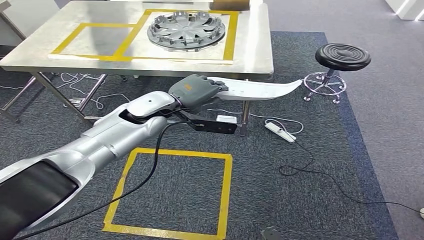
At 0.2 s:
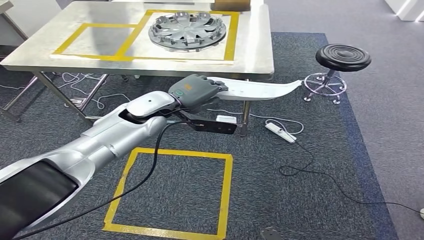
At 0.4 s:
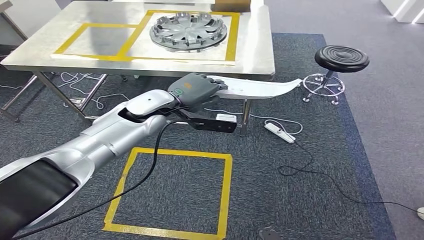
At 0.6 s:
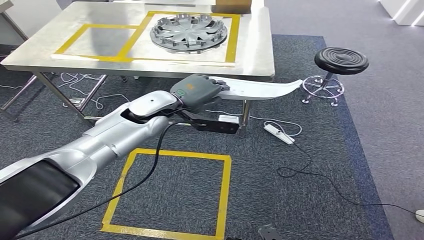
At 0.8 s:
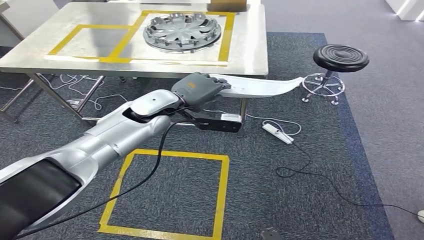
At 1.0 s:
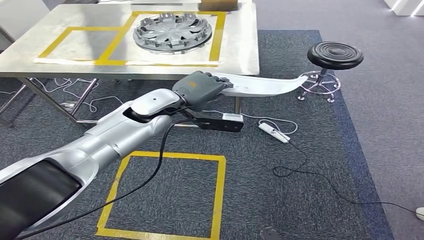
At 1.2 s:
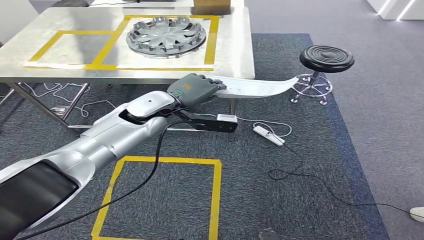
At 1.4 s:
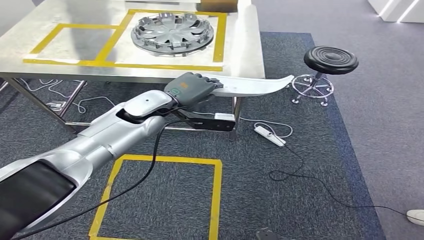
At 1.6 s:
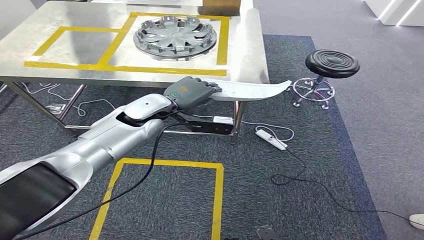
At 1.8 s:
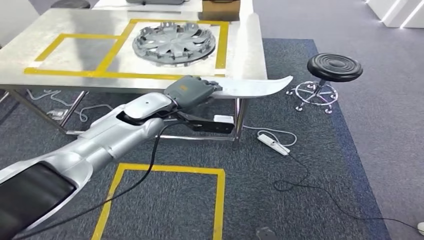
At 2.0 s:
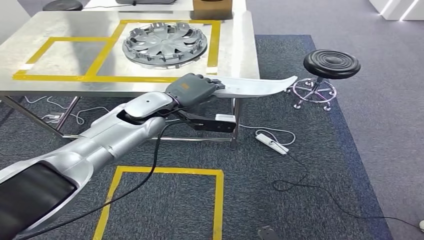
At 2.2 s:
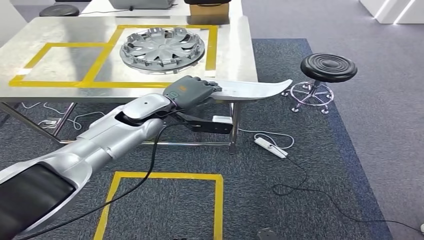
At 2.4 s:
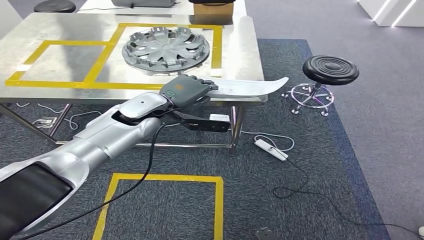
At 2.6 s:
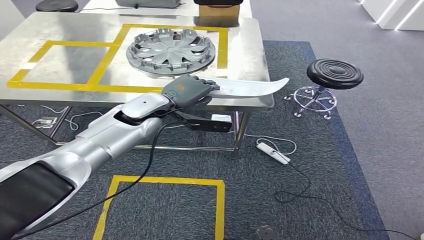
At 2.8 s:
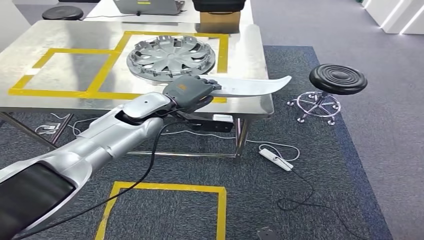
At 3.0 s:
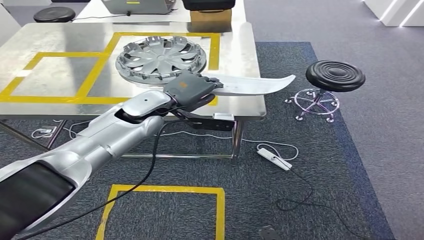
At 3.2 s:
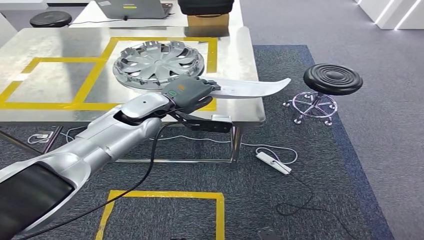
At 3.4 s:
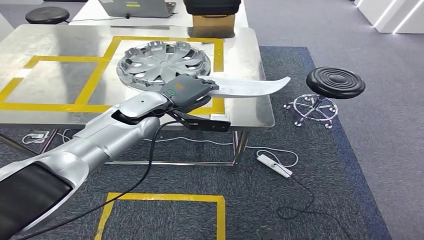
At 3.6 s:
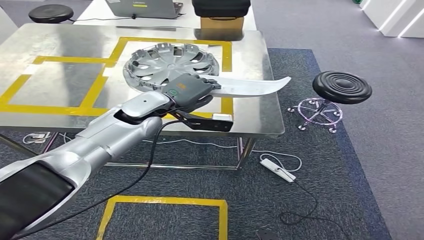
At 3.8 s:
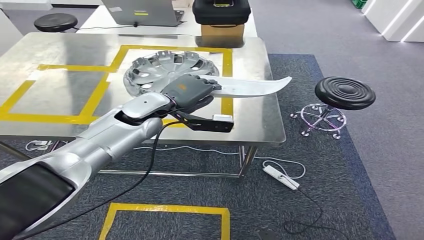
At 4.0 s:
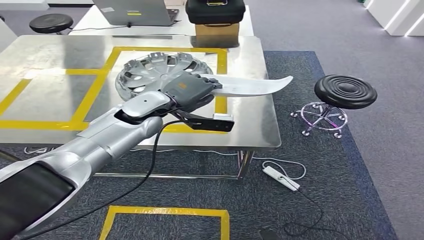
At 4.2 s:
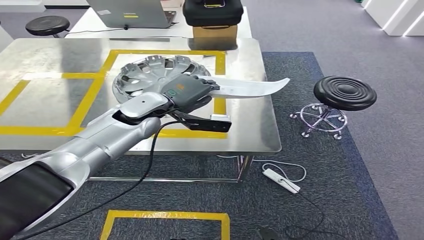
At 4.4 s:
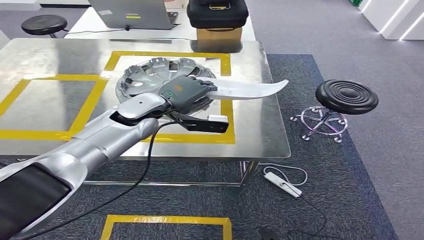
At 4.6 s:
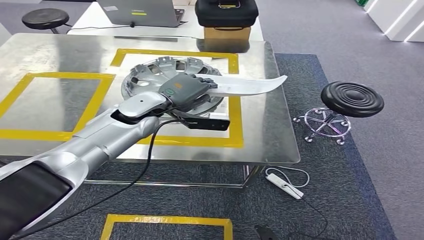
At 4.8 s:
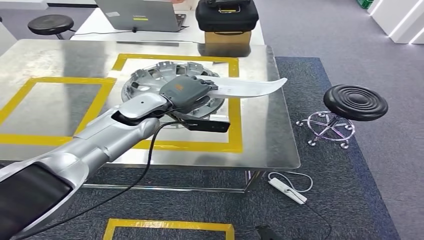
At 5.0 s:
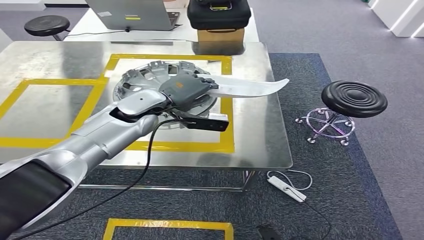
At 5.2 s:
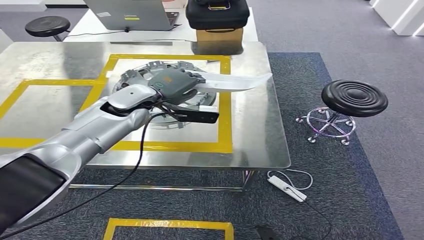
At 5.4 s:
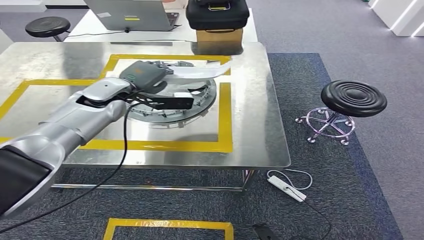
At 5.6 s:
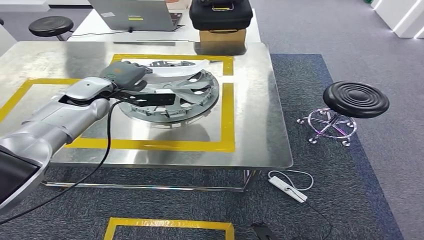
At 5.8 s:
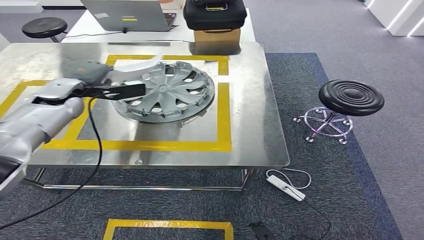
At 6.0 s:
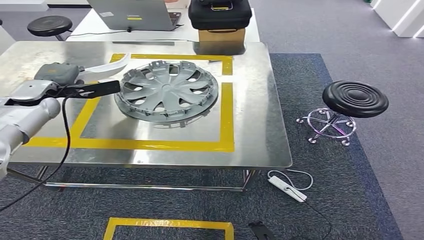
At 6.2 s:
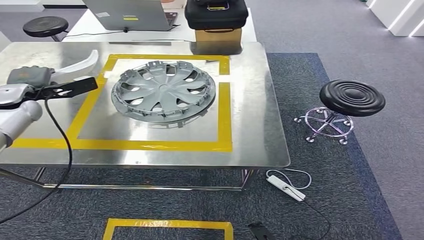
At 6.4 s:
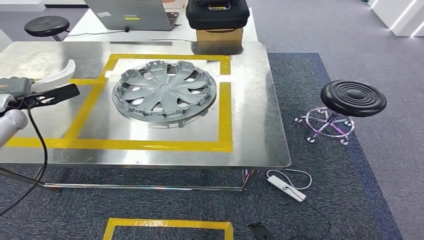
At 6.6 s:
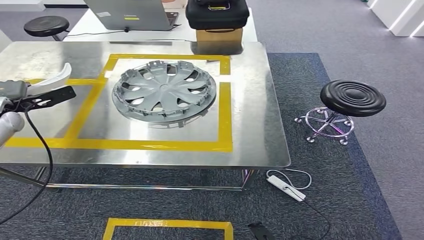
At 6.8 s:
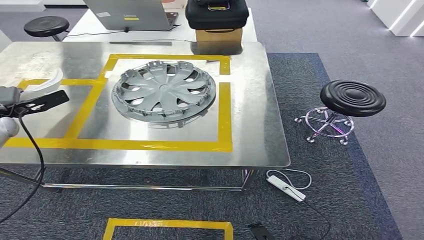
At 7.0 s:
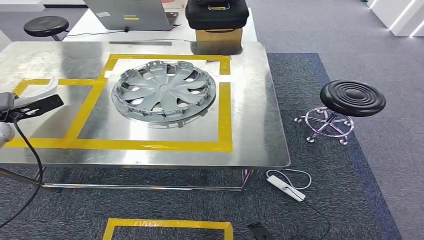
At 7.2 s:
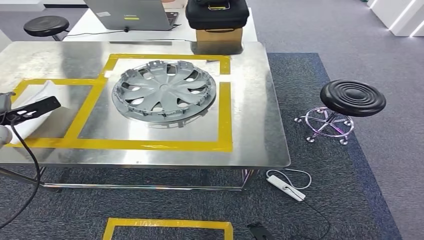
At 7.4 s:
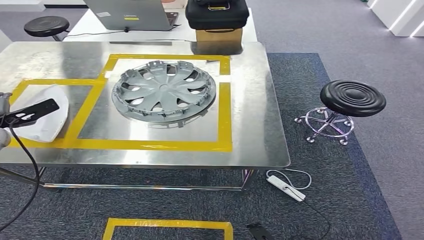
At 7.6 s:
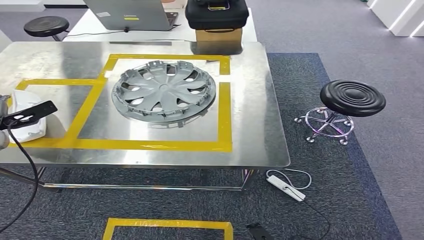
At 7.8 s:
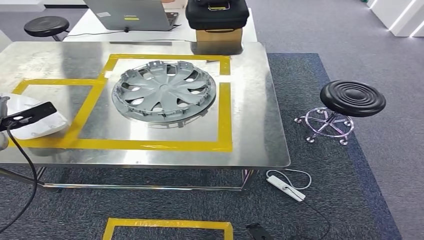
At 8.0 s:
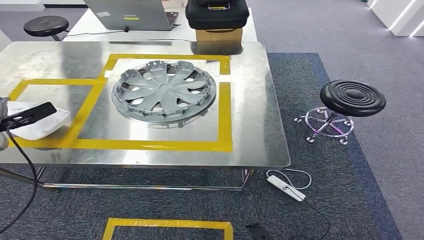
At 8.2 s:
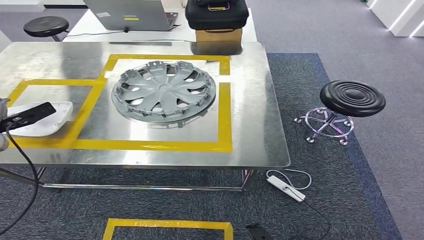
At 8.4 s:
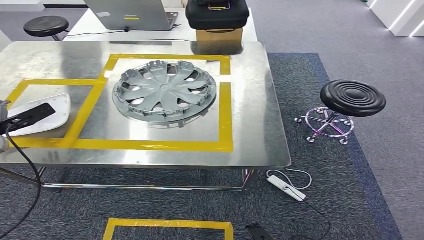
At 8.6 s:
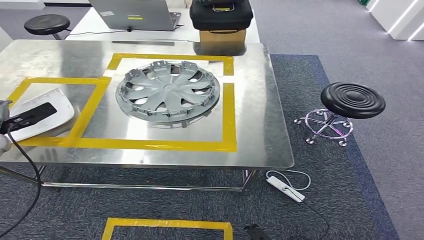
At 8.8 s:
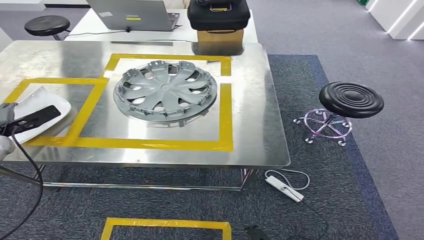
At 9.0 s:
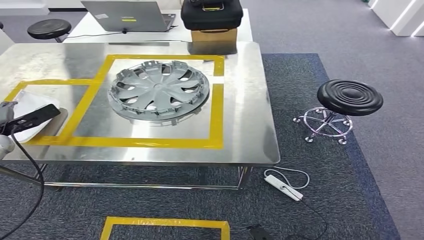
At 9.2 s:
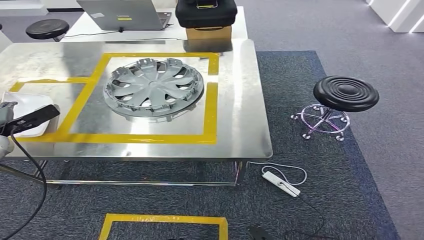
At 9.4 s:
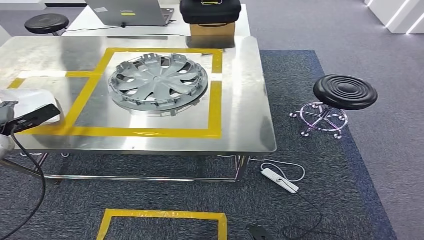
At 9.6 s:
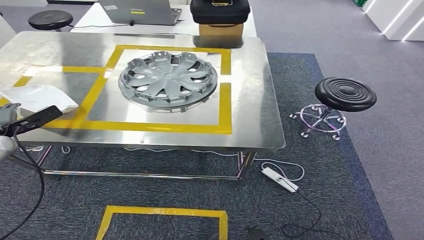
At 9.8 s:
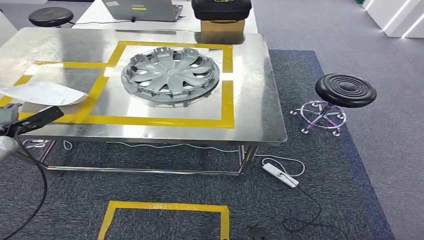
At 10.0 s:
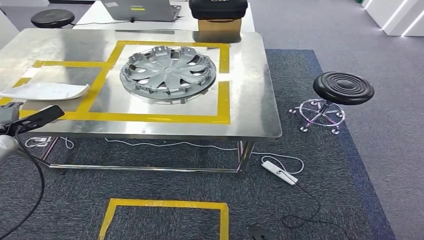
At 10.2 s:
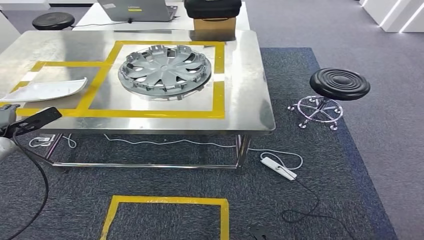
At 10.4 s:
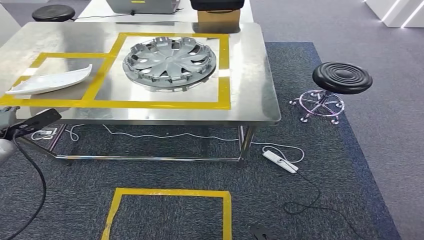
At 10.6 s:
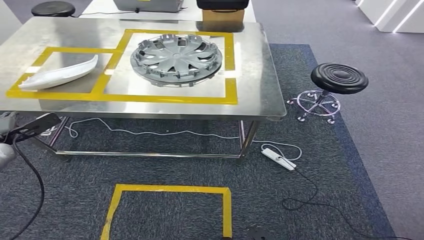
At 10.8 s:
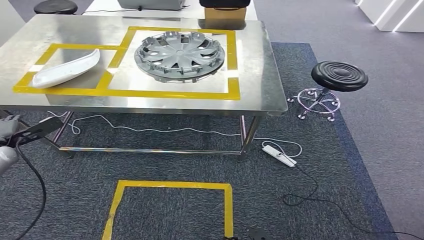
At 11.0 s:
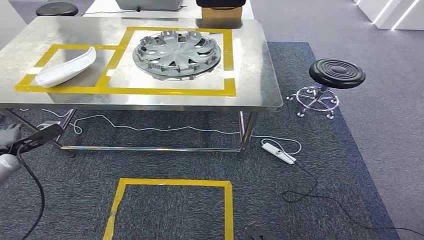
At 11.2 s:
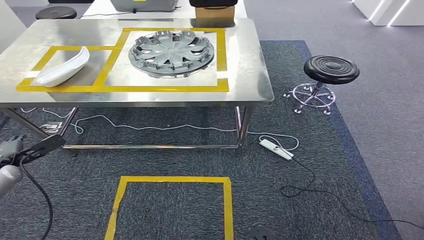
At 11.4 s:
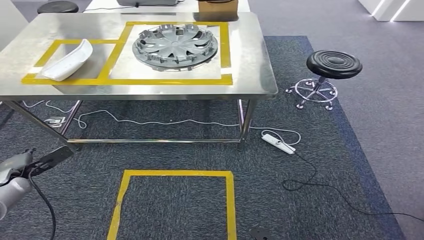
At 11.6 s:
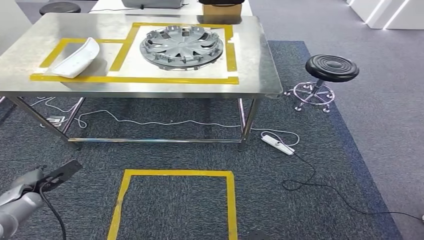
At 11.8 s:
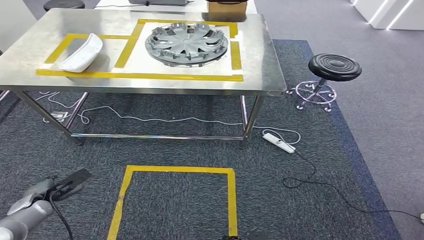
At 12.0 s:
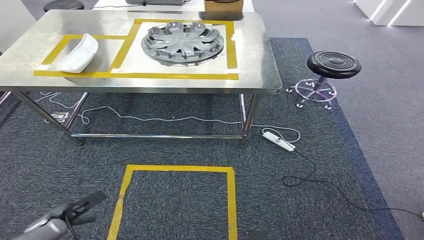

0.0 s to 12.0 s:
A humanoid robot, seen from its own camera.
Step, 0.0 to 5.8 s: Move the small component to the workbench.
6.0 to 7.6 s: The left hand travels to the left, downward and backward by some 20 cm.
7.6 to 9.0 s: There are only small adjustments of the hands.

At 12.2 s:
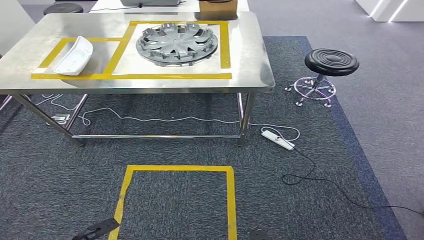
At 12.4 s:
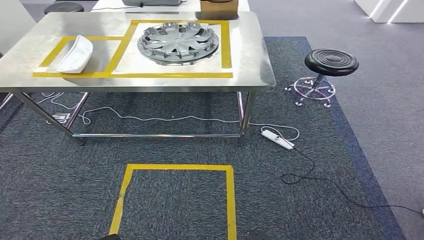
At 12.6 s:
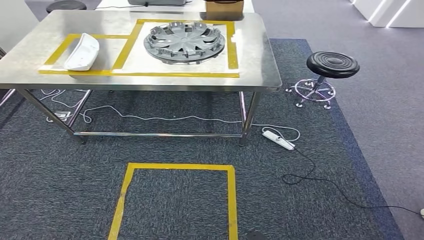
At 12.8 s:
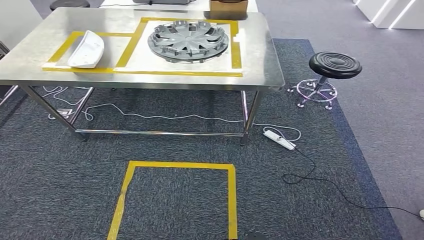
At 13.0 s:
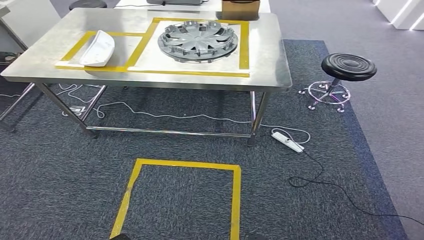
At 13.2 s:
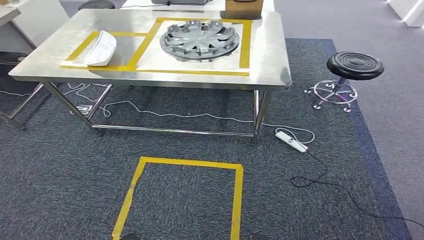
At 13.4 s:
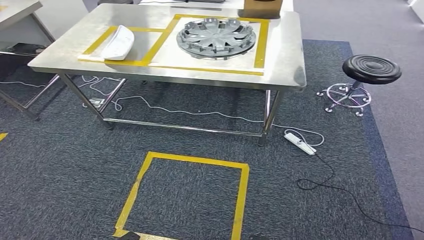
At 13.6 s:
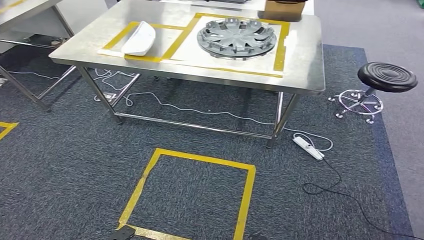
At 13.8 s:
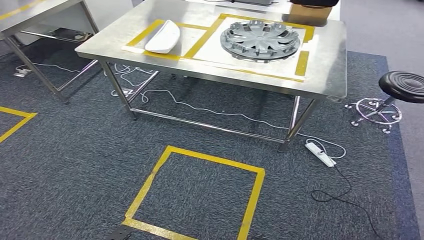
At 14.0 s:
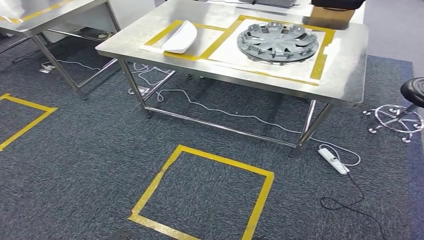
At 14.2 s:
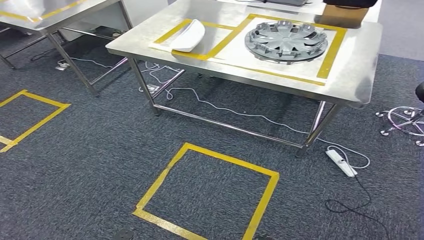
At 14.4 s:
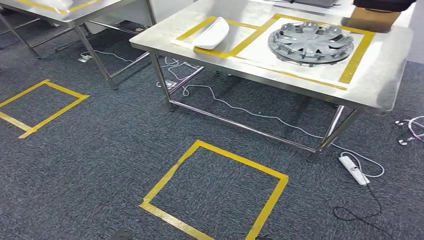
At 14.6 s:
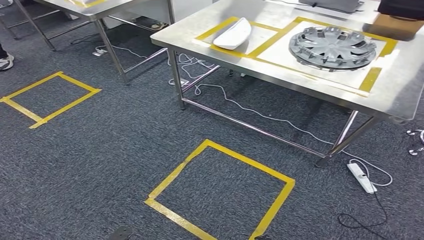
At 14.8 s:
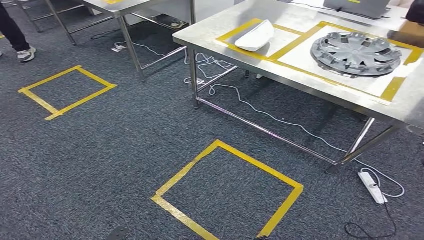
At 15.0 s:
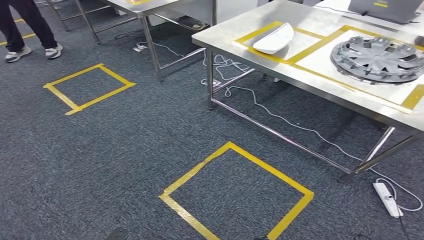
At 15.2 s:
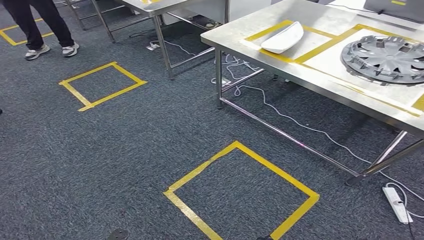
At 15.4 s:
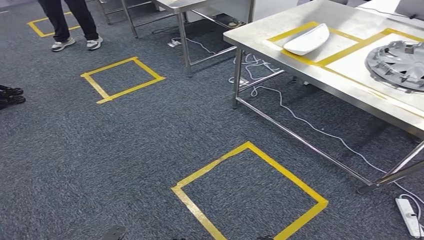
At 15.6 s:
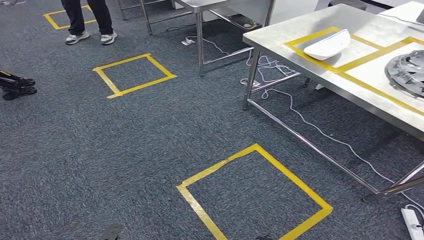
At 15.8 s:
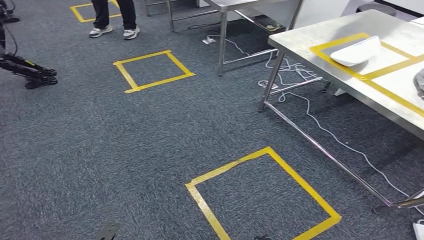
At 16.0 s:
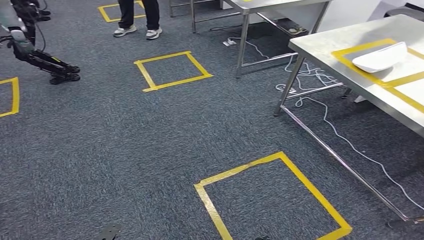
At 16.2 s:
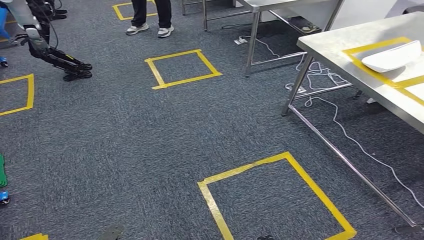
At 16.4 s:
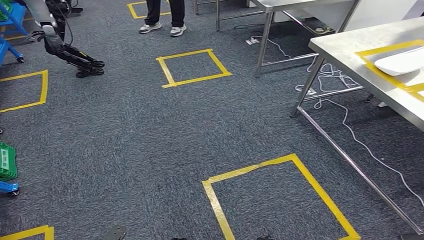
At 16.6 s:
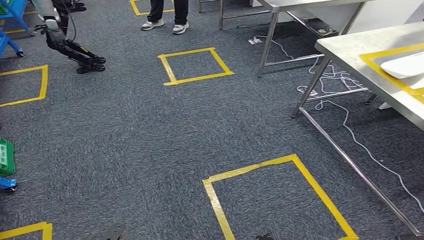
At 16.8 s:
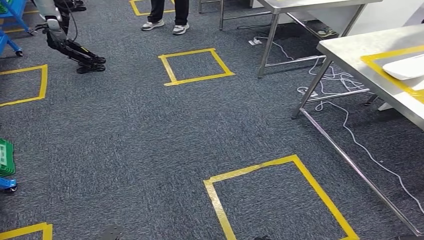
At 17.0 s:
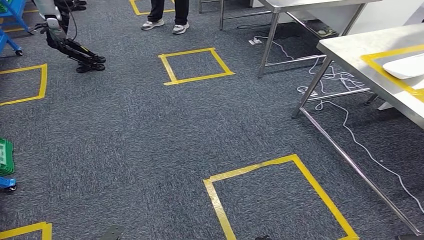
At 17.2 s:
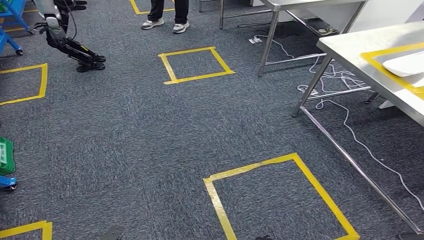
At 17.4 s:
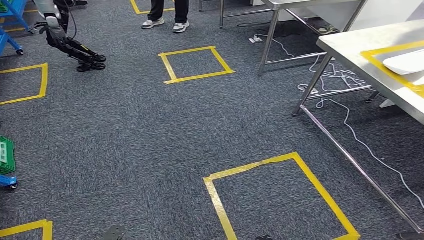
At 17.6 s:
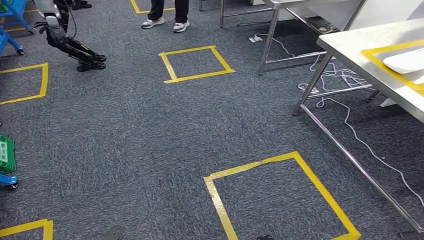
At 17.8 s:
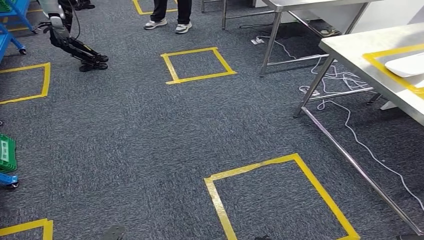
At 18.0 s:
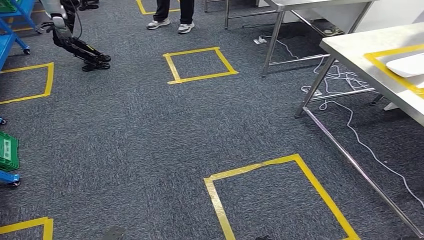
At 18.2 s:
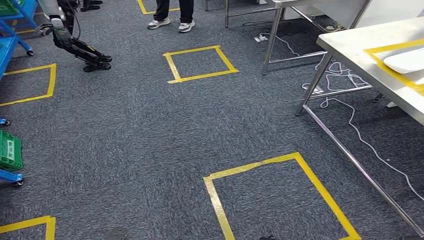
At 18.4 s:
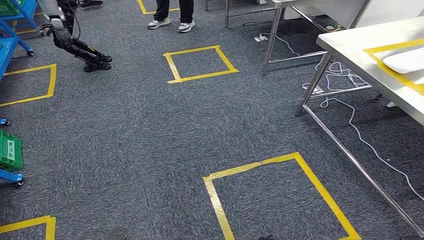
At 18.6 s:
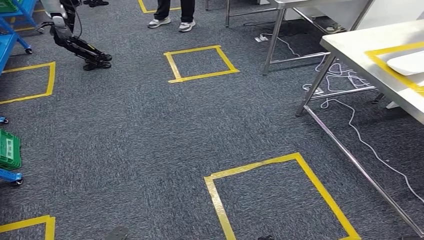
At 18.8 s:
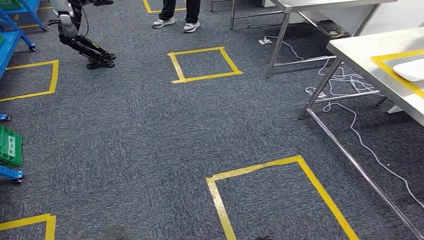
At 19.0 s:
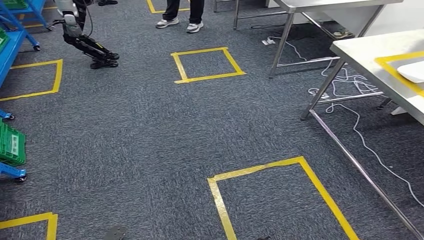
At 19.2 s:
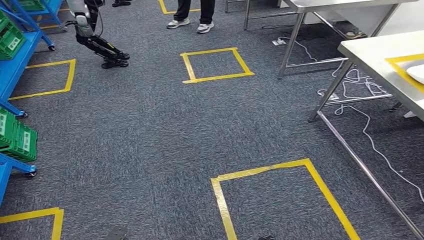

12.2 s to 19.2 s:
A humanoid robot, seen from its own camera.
16.4 to 17.8 s: Both hands stay put.
